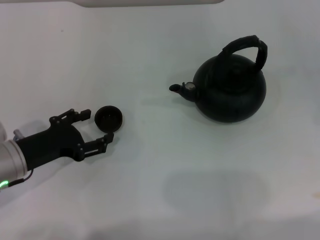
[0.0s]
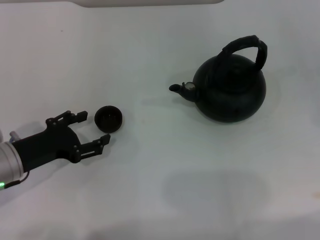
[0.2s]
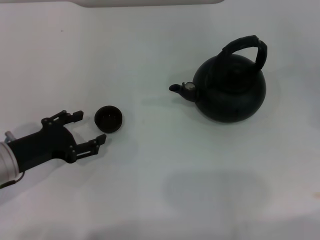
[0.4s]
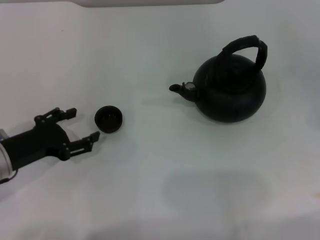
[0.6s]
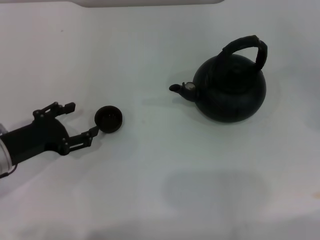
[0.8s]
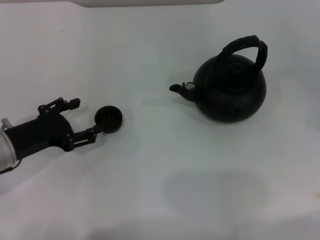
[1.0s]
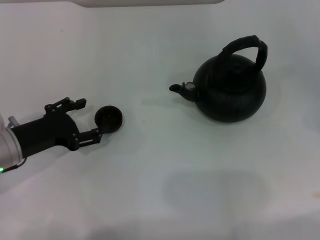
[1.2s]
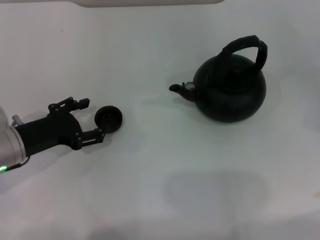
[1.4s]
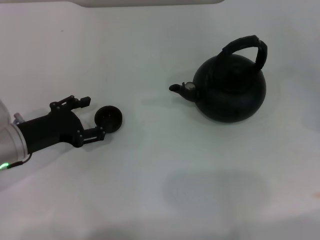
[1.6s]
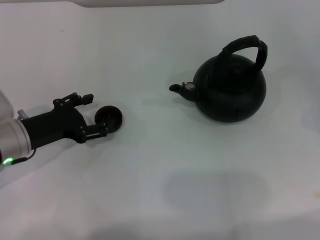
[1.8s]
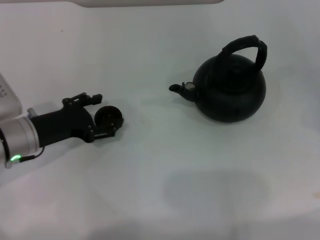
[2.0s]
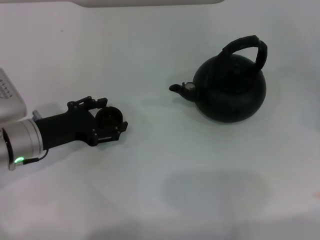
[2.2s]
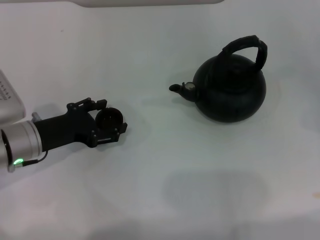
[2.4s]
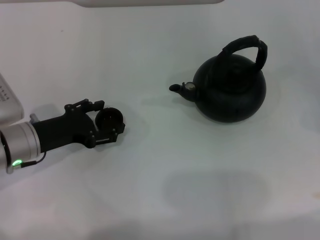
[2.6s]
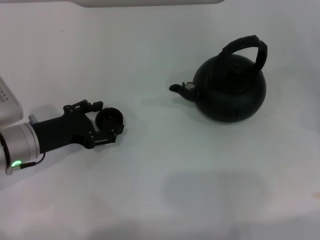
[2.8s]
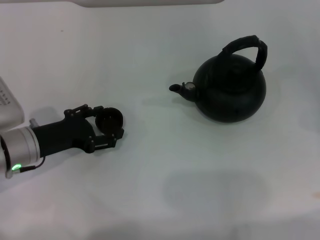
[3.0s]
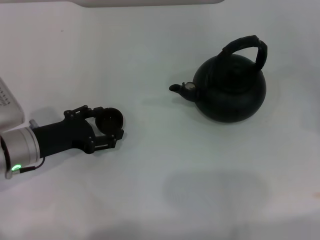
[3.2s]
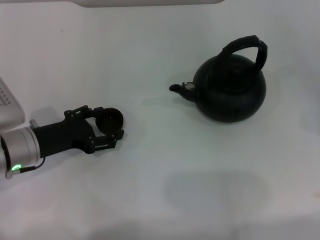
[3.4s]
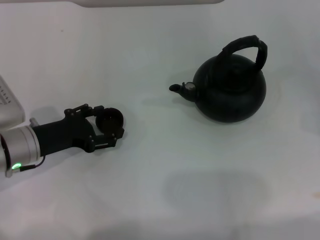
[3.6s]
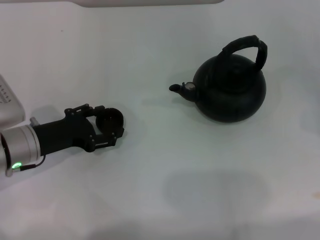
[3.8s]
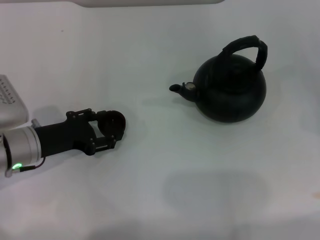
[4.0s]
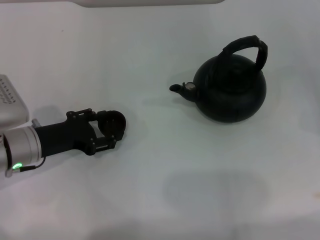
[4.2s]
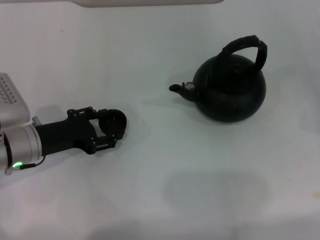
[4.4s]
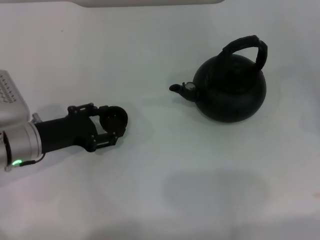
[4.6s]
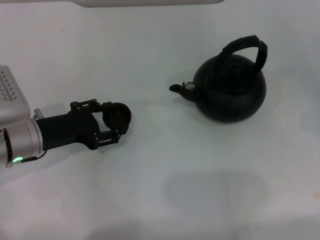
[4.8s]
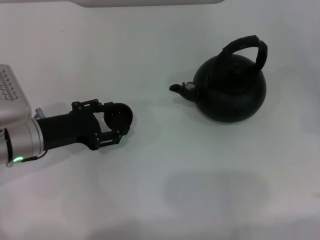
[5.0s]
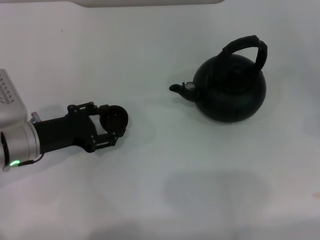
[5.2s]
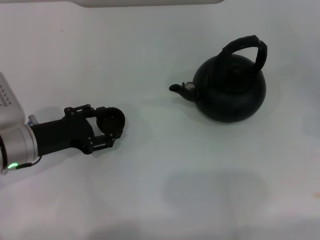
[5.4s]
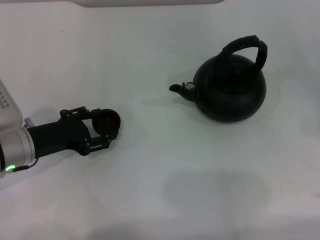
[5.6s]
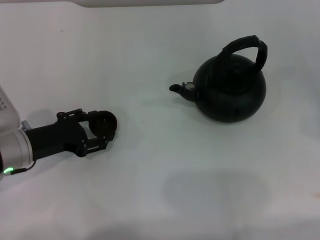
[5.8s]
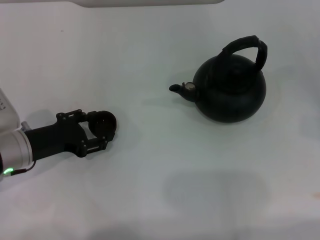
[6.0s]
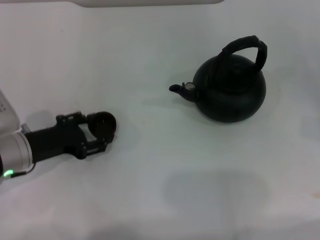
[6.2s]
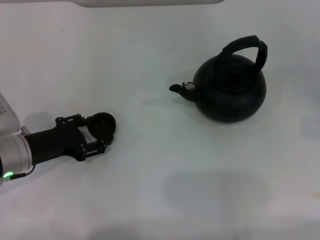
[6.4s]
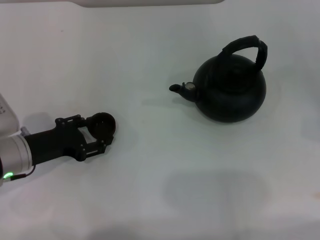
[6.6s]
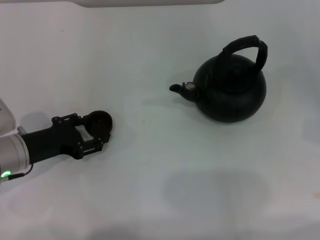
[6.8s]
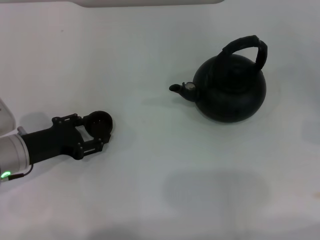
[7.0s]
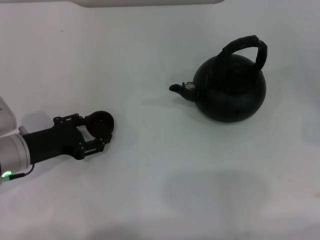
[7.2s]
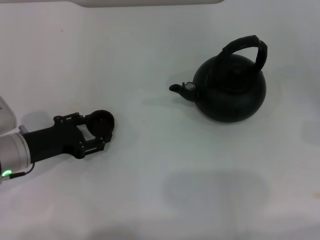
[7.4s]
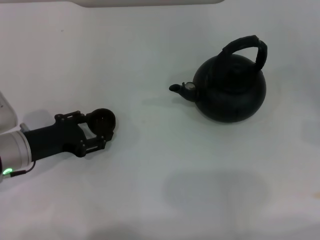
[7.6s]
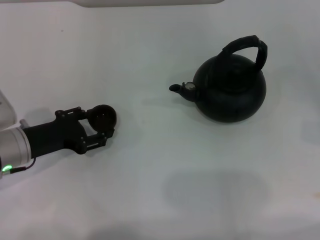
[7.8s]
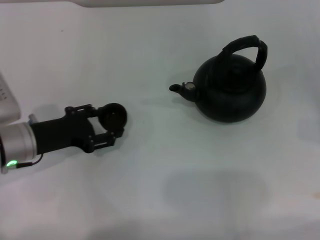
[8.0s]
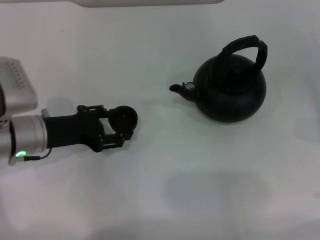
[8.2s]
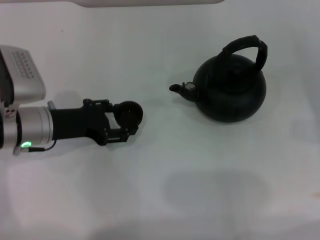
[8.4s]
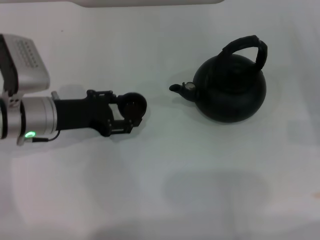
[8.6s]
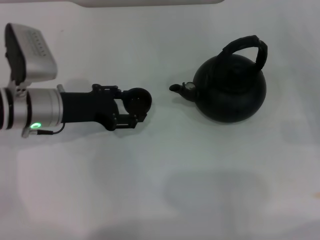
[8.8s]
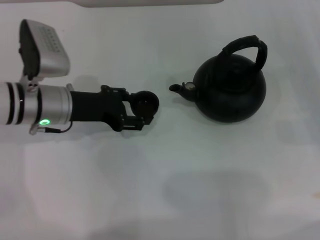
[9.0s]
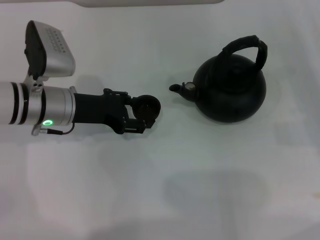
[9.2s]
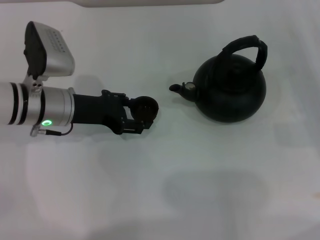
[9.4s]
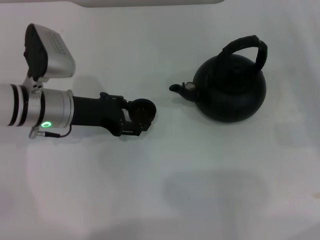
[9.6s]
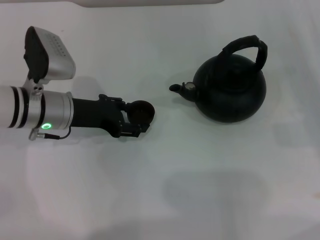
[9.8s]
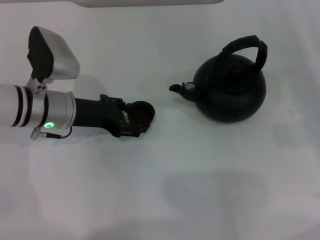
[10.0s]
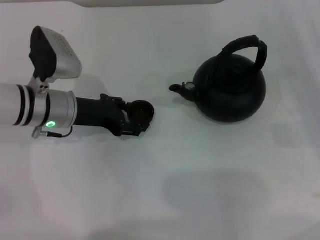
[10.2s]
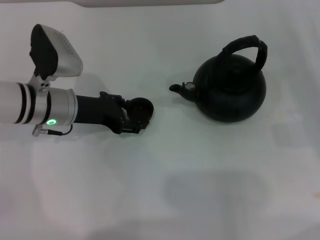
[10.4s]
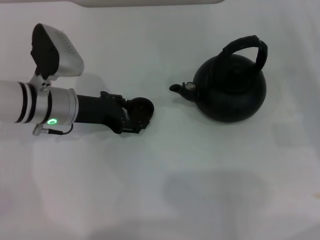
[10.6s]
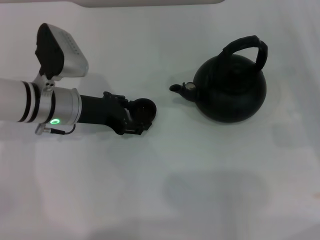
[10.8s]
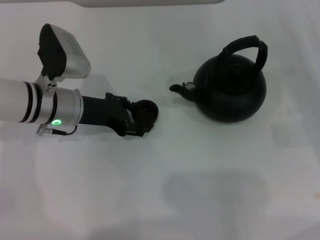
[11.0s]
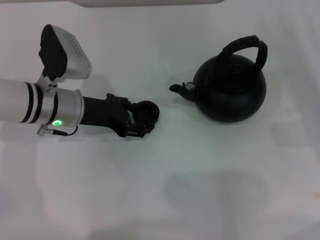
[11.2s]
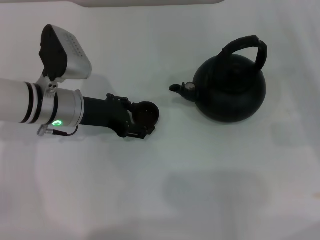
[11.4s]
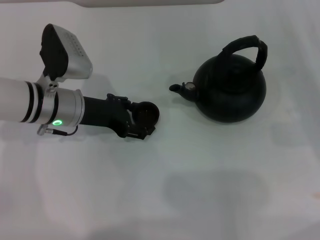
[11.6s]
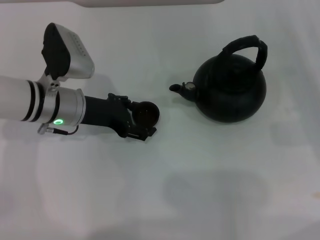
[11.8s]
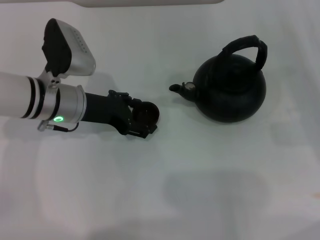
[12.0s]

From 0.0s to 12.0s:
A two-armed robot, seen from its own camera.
Task of the whole recording: Grasp the handle of the teapot with one hand and pour tea into the teacup.
Step, from 0.0s to 8.2s: Pick up the teacup with the left gripper.
From 0.0s to 3.0s: The grippers stay close to where they were, moving slightly.
From 3.0s to 4.4s: The left gripper closes its fingers.
From 4.4s to 6.0s: The grippers stay close to where they were, moving slightly.
From 6.0s to 7.6s: Neither gripper changes place.
From 7.6s to 9.0s: The left gripper travels forward and to the right by approximately 10 cm.
From 9.0s to 10.4s: The grippers stay close to where they were, moving slightly.
From 10.4s to 12.0s: The left gripper opens its fingers.

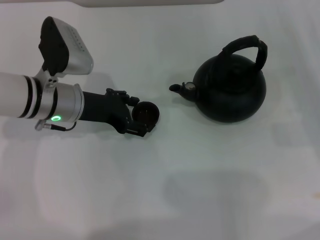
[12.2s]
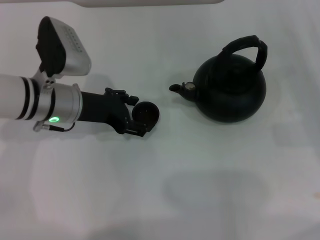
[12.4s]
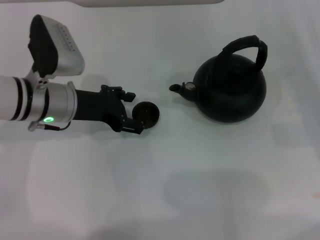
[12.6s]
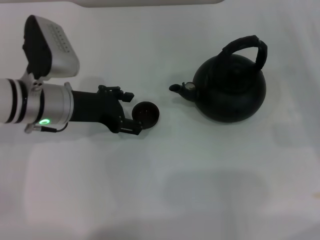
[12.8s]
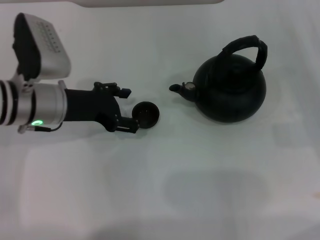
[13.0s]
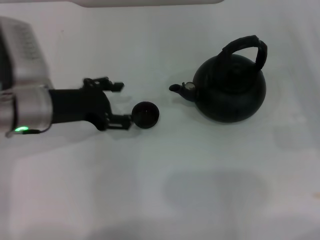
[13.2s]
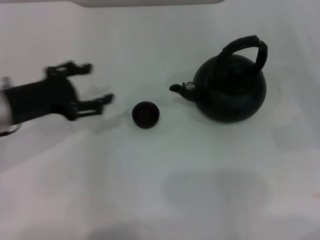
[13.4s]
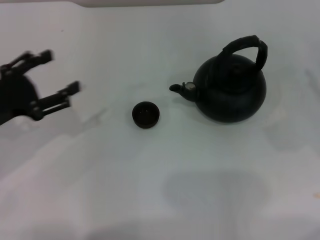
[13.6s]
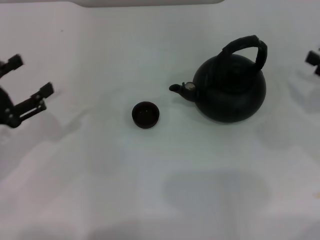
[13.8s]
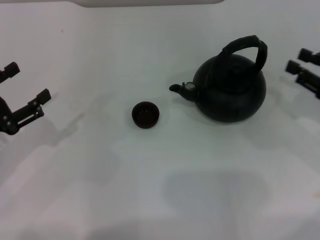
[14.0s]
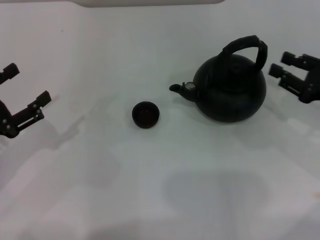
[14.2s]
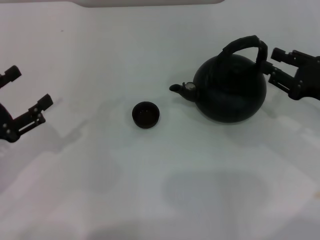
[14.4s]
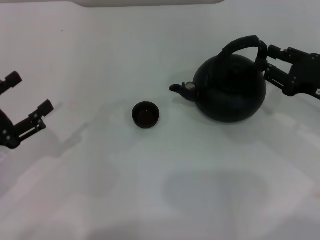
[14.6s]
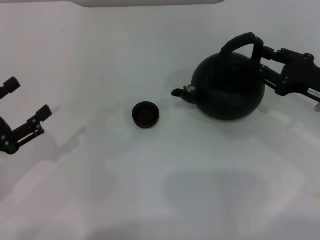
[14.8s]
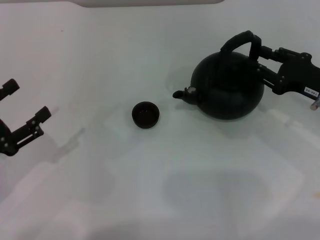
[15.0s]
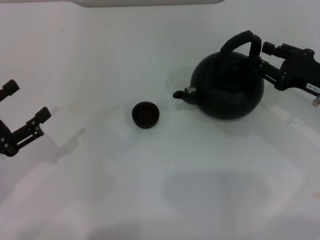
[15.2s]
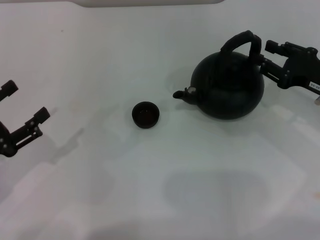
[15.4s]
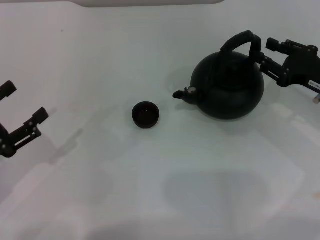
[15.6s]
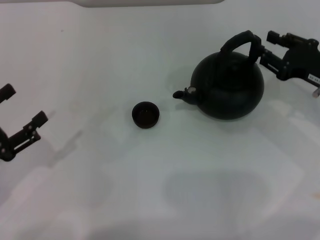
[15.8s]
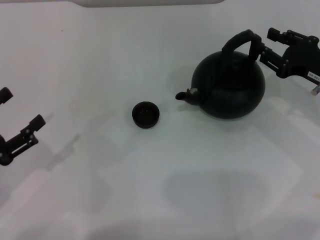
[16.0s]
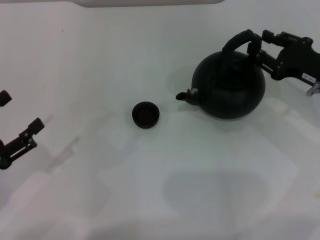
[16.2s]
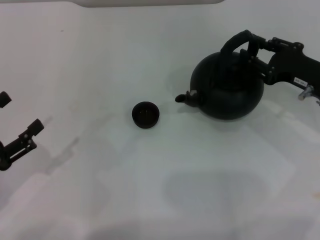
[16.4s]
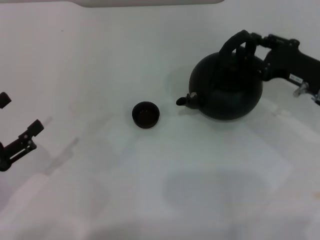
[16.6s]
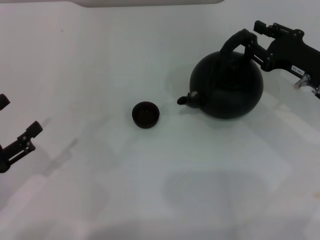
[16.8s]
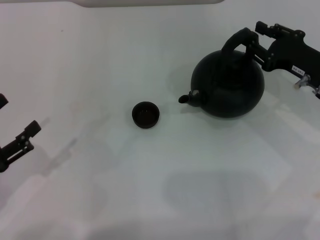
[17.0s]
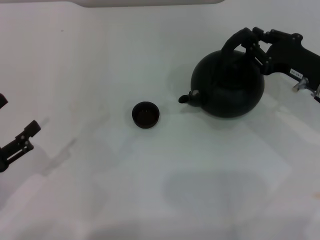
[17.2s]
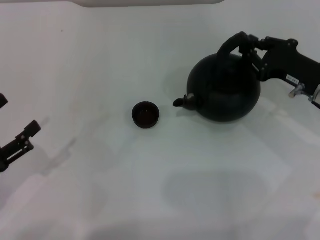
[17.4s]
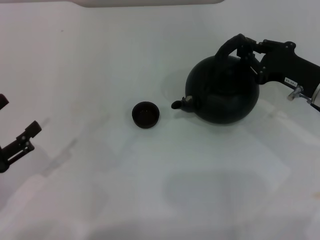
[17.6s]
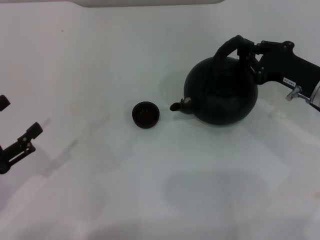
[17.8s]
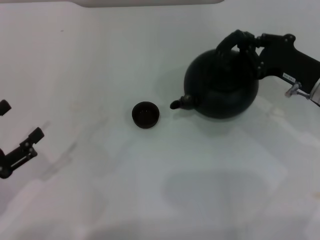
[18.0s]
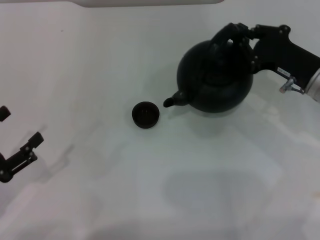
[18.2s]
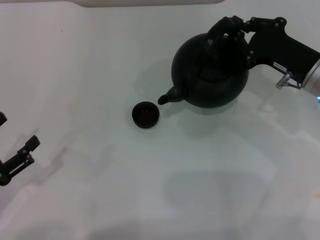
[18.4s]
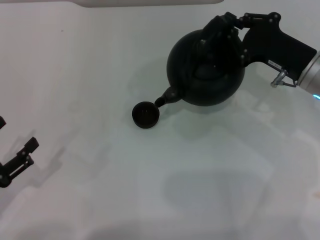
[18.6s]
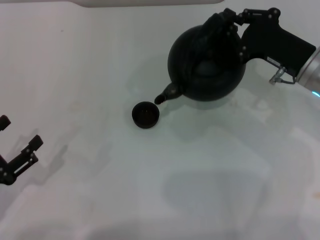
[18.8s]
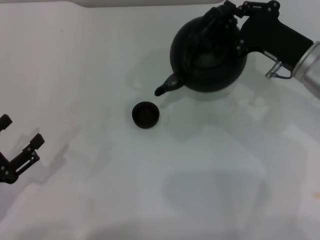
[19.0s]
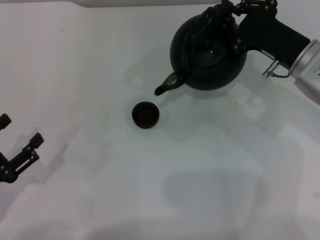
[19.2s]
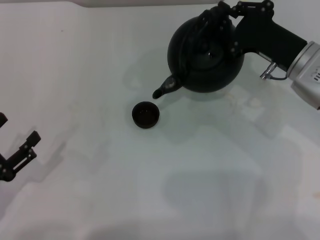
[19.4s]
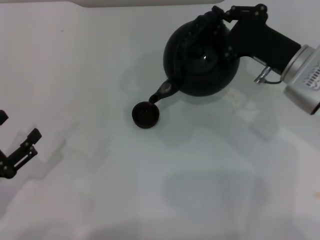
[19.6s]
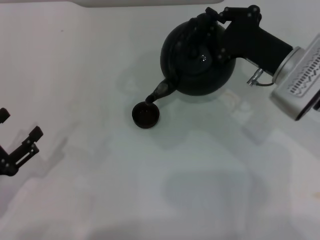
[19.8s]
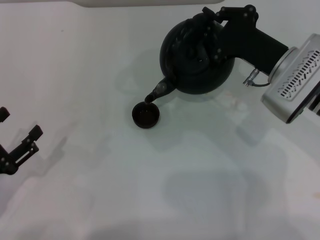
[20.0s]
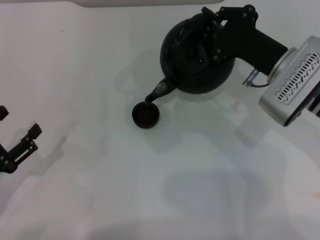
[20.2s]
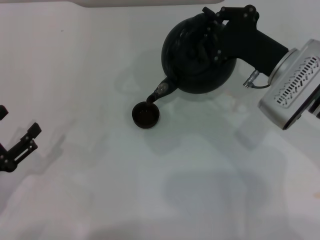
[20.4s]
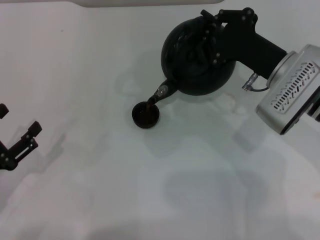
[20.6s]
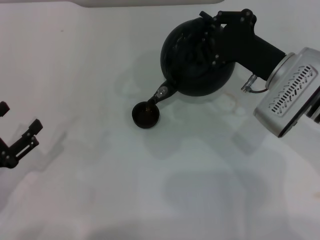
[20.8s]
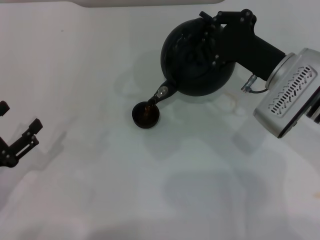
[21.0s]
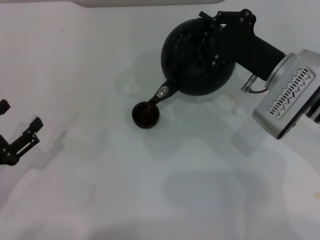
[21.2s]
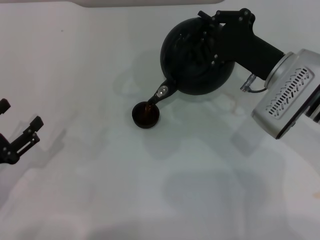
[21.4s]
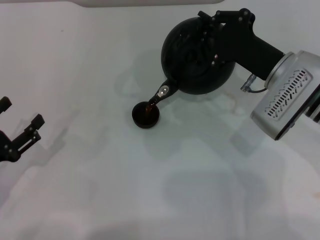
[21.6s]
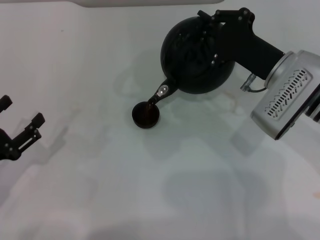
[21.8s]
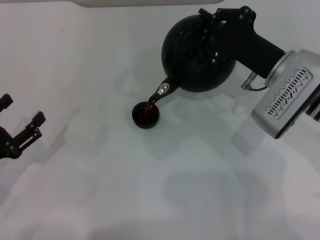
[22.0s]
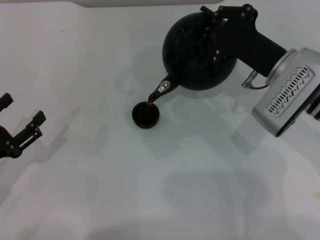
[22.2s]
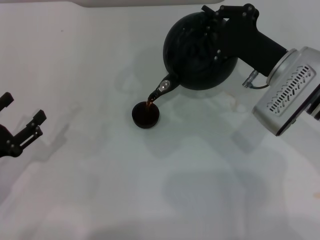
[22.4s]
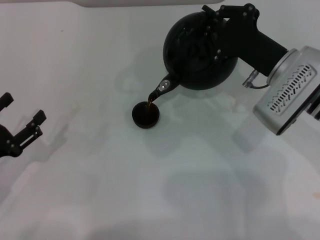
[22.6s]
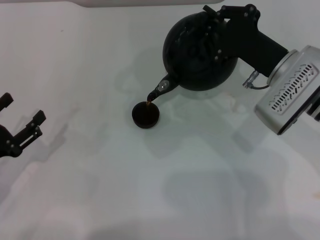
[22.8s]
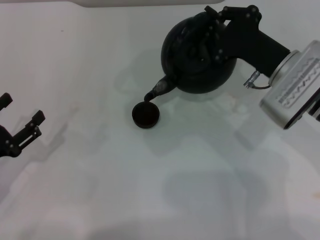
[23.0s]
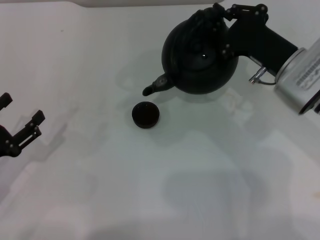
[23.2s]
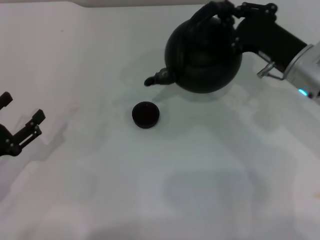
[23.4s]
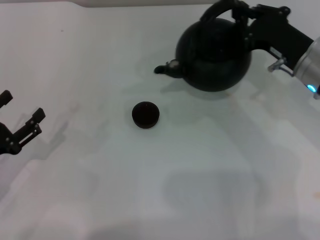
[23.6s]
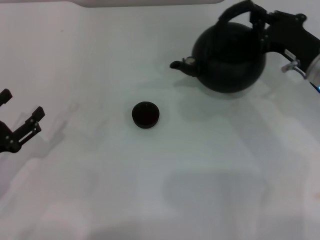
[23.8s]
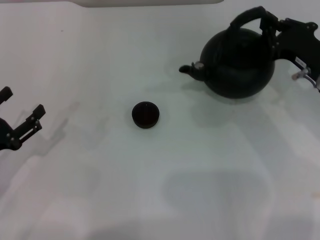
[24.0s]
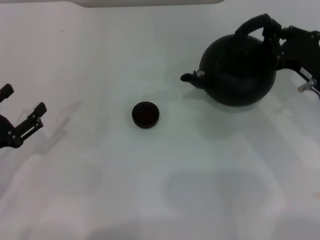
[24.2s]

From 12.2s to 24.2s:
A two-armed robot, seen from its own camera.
Task of the whole recording: Grasp the handle of the teapot with one hand and pour tea into the teacup.
Step, from 12.6s to 19.4s: Pick up the teapot with the right gripper.
Step, from 19.6s to 23.4s: Pour tea into the teacup with the right gripper.
From 12.2s to 13.8s: The left gripper heads to the left and backward, covering roughly 20 cm.
From 13.8s to 15.2s: The right gripper heads to the left, covering approximately 5 cm.
From 15.2s to 16.6s: The grippers stay close to where they were, moving slightly.
From 16.6s to 18.2s: The right gripper closes.
From 18.2s to 19.8s: The right gripper shifts approximately 5 cm to the left.
From 19.8s to 21.2s: The grippers stay close to where they were, moving slightly.
From 21.2s to 22.6s: Both grippers stay about where they are.
From 22.6s to 24.2s: The right gripper shifts about 10 cm to the right.
